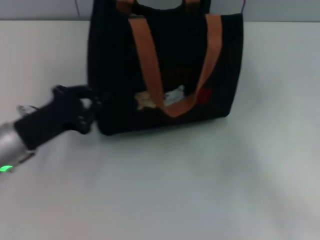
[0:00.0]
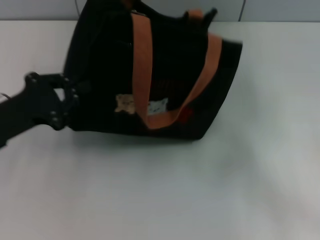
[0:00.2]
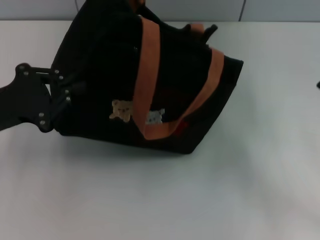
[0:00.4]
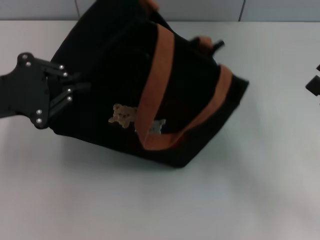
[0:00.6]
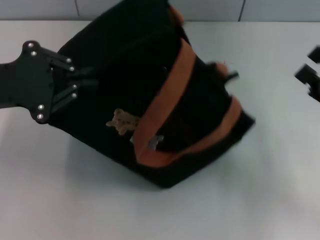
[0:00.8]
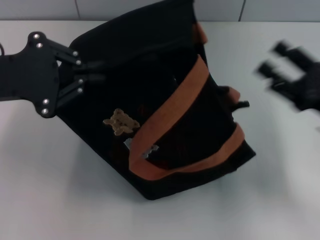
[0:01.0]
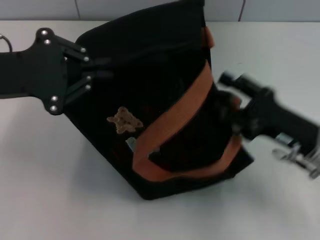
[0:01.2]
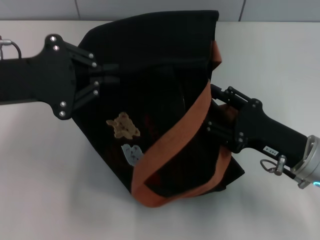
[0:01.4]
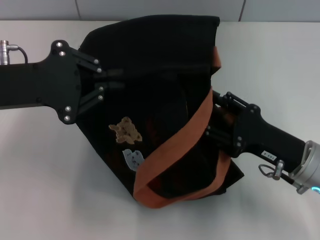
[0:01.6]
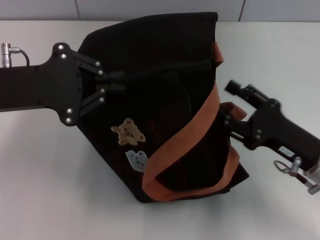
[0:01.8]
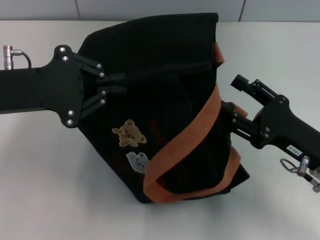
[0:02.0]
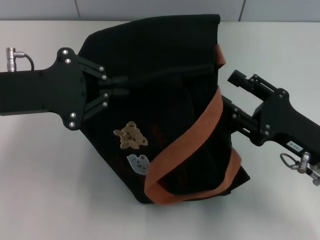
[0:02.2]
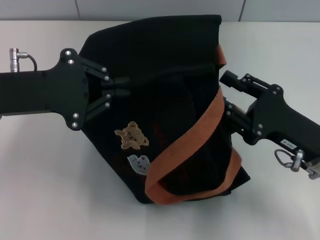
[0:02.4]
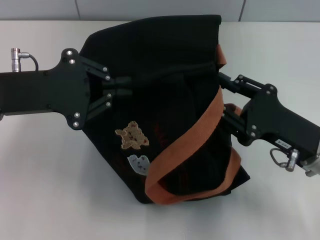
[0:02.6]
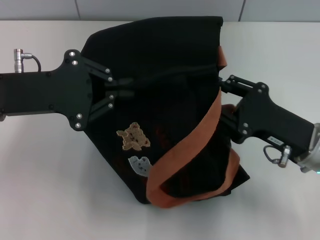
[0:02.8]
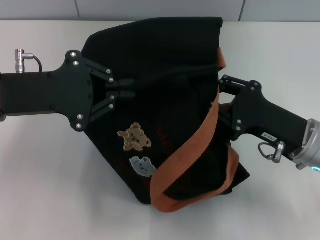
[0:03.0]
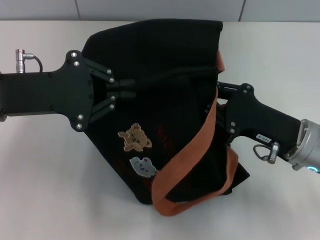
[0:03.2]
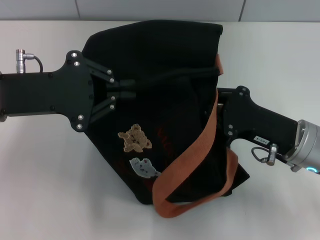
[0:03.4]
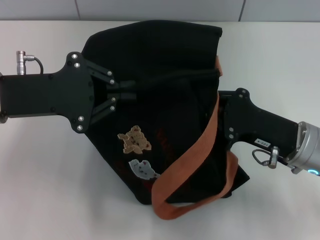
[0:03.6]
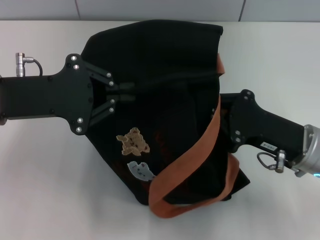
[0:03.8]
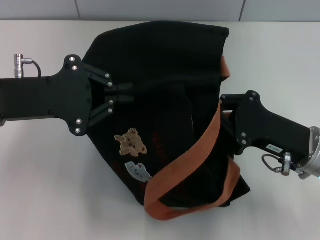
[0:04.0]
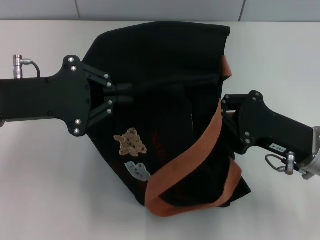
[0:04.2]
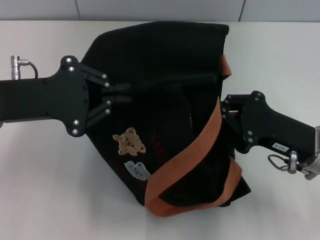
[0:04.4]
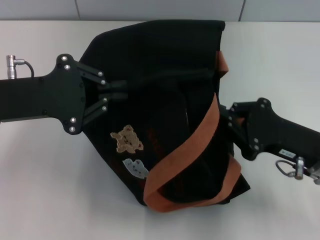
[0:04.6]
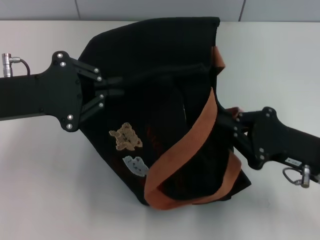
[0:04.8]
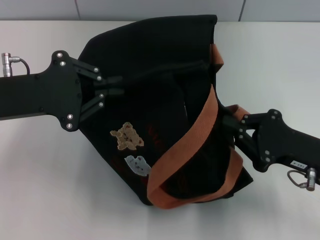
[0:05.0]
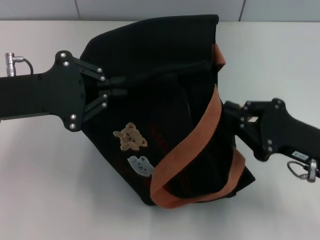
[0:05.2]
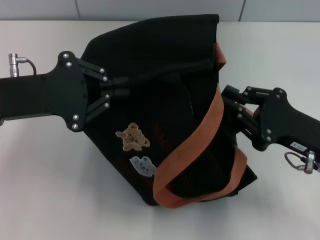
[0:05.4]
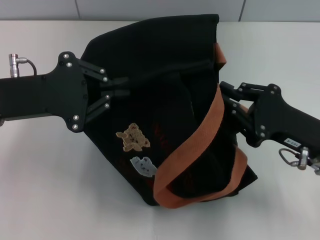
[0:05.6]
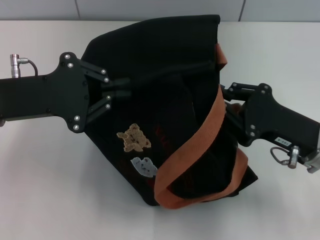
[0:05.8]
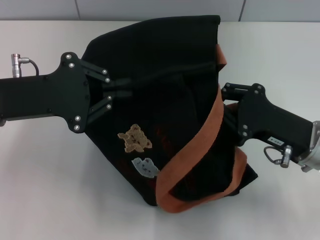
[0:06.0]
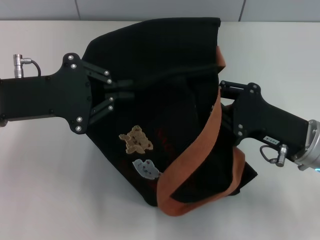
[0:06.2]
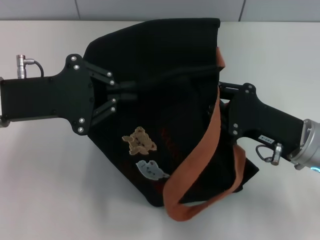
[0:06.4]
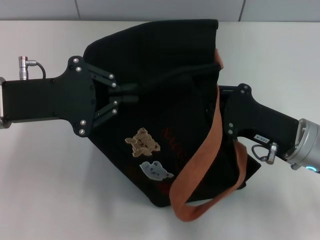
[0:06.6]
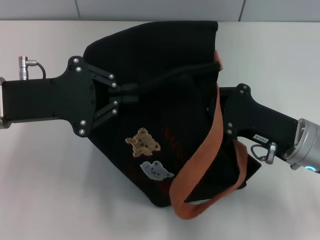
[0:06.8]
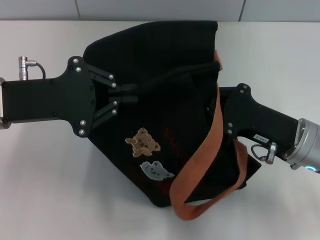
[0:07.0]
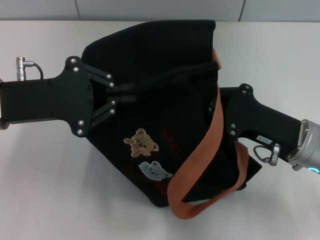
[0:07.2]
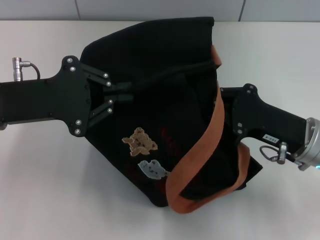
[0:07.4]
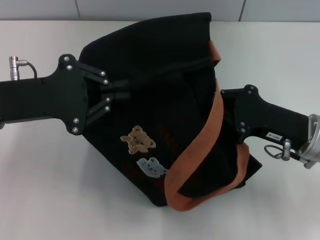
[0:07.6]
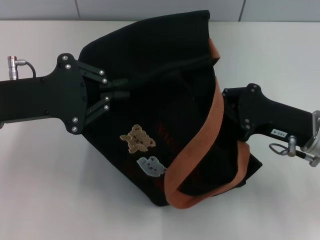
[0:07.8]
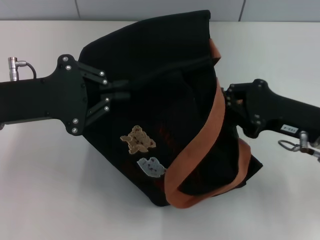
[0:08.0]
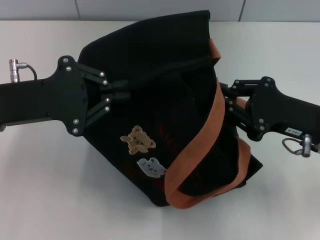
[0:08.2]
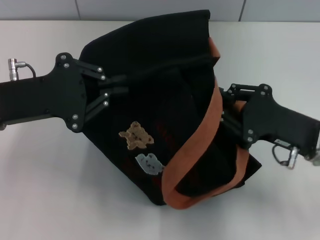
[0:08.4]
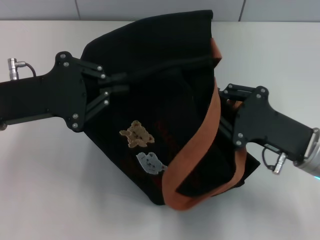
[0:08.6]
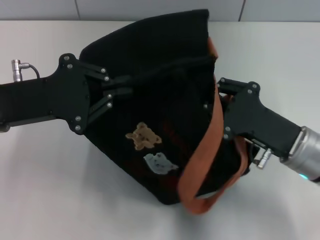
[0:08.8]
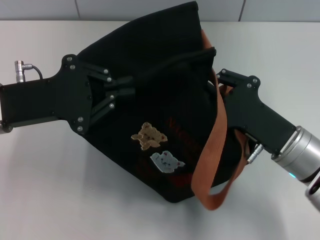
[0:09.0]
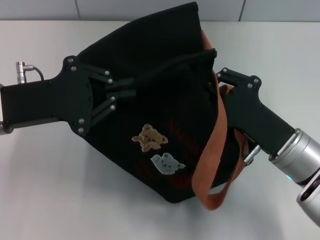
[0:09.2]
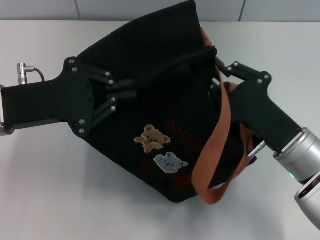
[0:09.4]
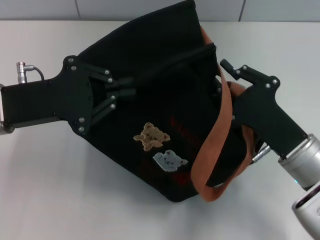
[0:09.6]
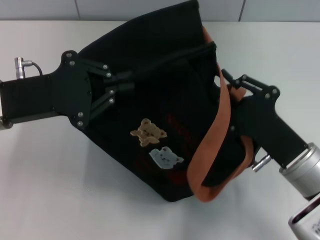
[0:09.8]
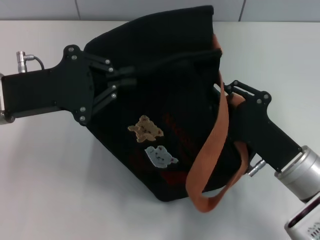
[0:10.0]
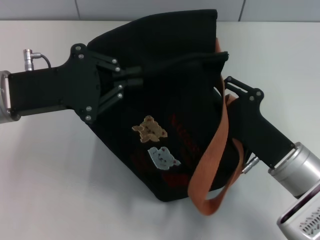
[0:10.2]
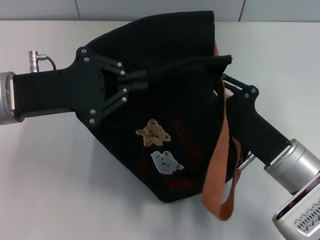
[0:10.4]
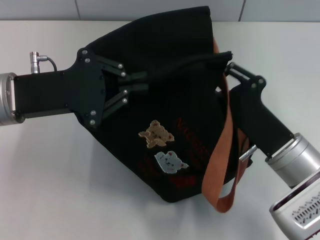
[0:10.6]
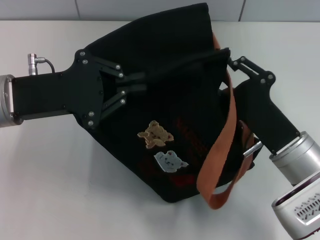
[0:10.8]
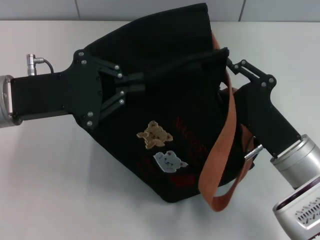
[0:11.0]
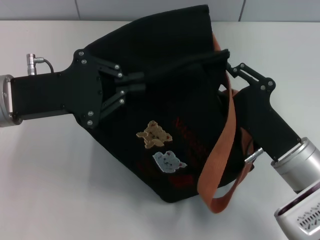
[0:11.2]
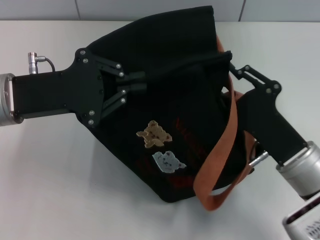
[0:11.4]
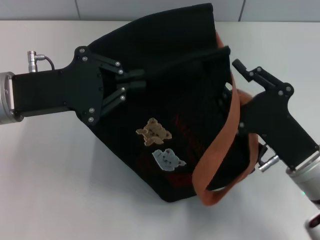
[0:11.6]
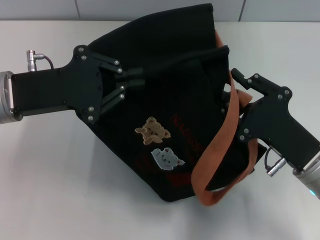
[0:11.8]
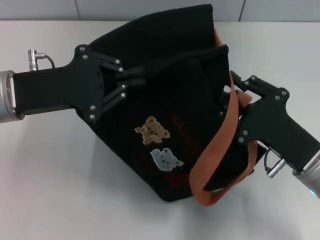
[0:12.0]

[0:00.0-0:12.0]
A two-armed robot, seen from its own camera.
0:00.0 to 0:01.6: The right gripper heads to the left, covering approximately 15 cm. Meanwhile the left gripper travels upward by about 15 cm.
0:03.0 to 0:04.4: The right gripper closes.
0:04.4 to 0:07.6: The grippers make only small movements.
0:09.0 to 0:10.4: The grippers stay close to where they were, moving slightly.
0:10.4 to 0:12.0: There are only small adjustments of the grippers.

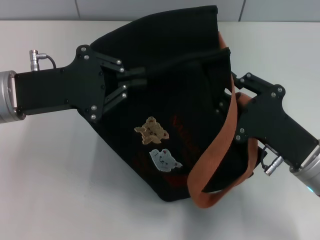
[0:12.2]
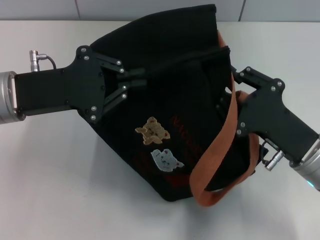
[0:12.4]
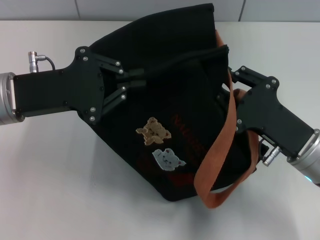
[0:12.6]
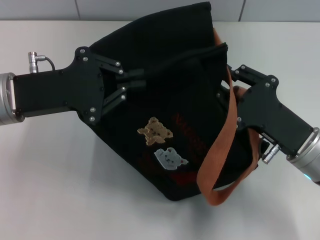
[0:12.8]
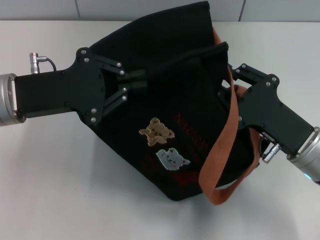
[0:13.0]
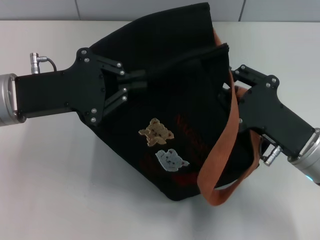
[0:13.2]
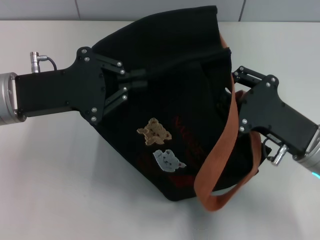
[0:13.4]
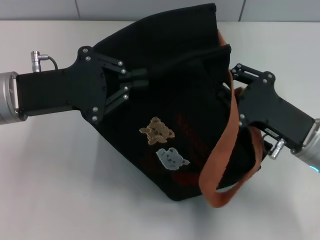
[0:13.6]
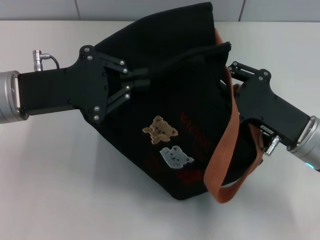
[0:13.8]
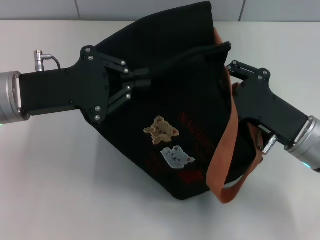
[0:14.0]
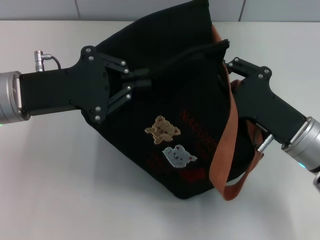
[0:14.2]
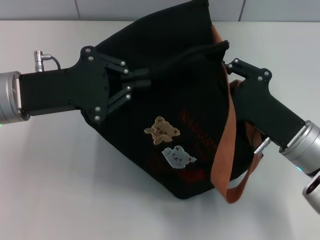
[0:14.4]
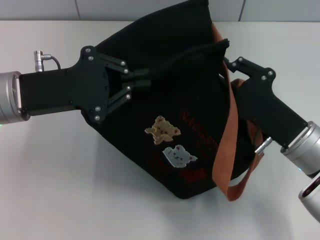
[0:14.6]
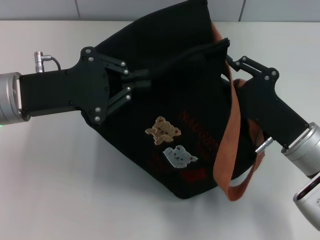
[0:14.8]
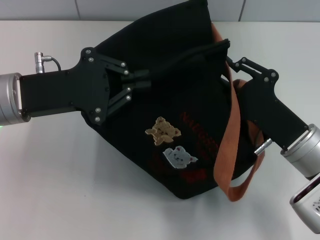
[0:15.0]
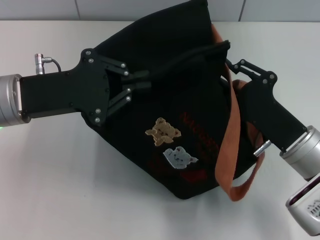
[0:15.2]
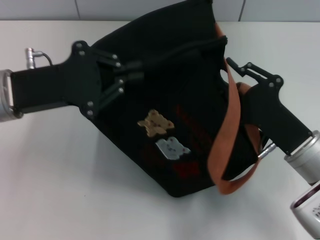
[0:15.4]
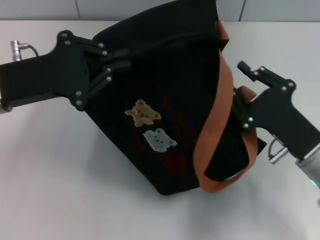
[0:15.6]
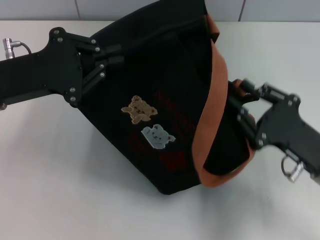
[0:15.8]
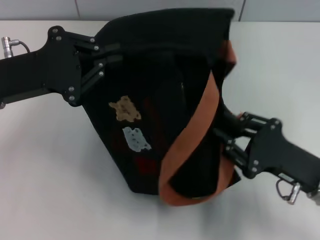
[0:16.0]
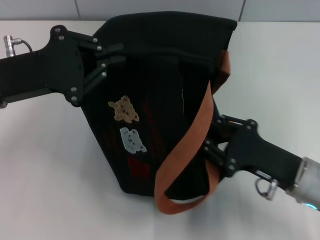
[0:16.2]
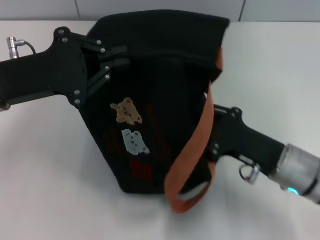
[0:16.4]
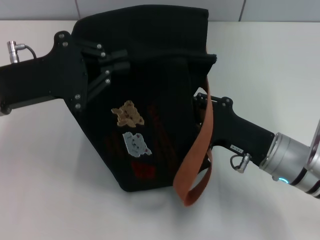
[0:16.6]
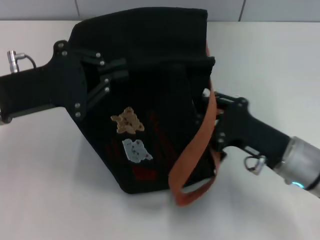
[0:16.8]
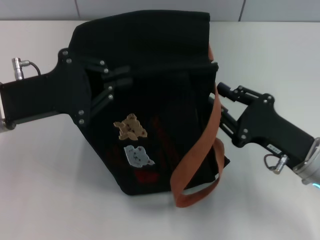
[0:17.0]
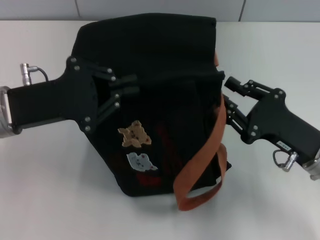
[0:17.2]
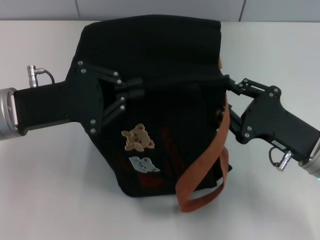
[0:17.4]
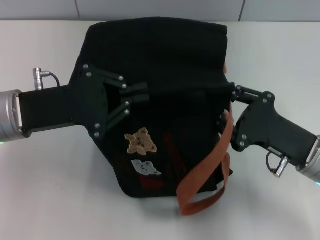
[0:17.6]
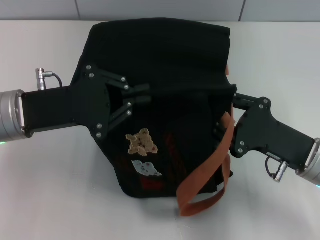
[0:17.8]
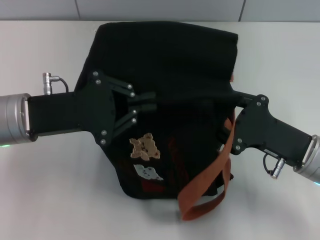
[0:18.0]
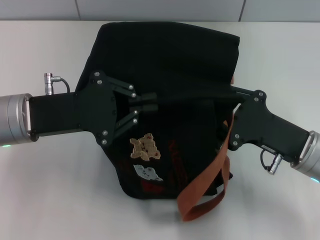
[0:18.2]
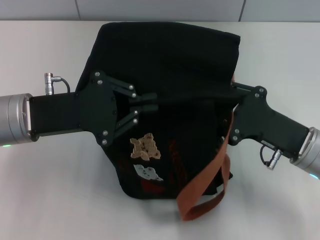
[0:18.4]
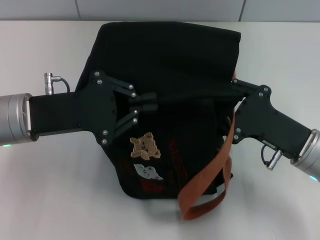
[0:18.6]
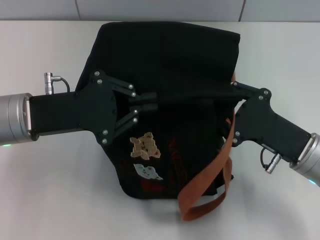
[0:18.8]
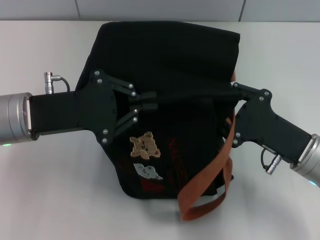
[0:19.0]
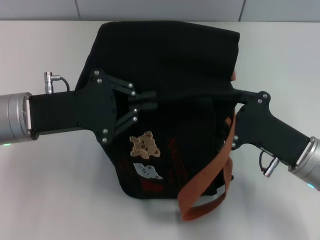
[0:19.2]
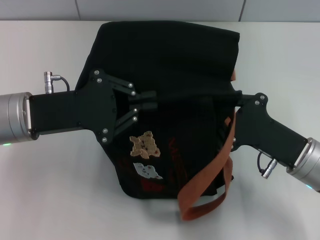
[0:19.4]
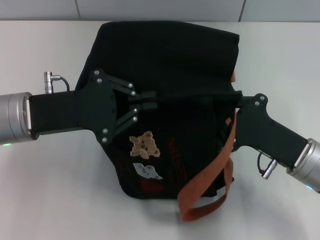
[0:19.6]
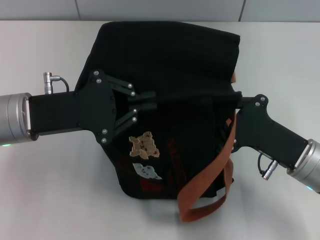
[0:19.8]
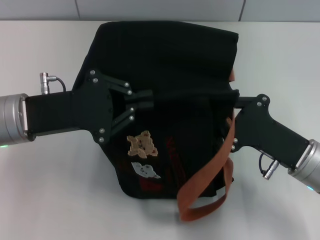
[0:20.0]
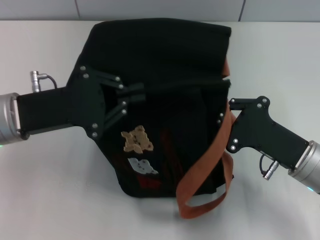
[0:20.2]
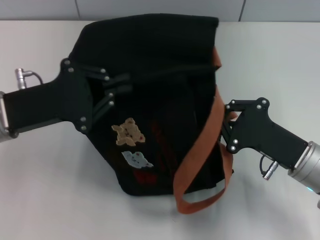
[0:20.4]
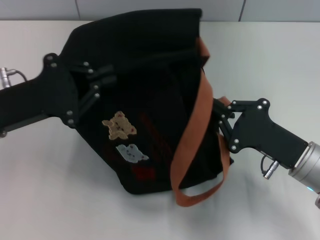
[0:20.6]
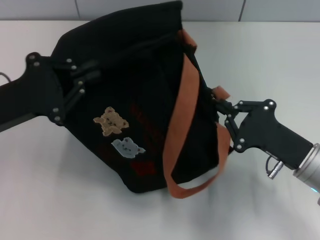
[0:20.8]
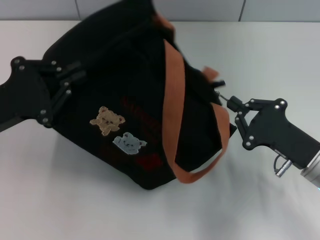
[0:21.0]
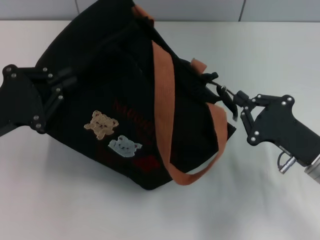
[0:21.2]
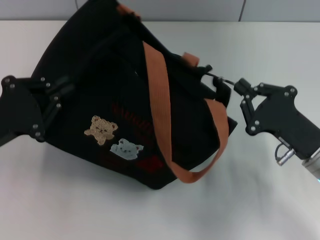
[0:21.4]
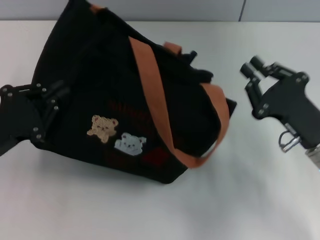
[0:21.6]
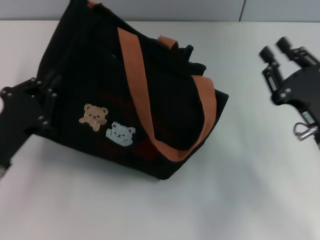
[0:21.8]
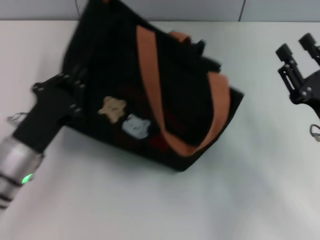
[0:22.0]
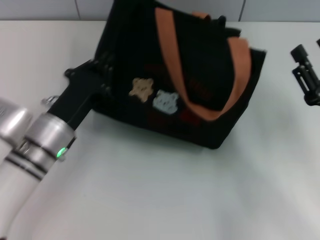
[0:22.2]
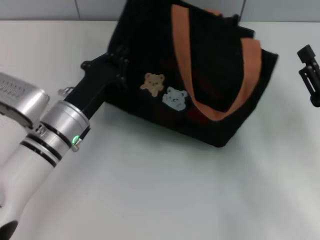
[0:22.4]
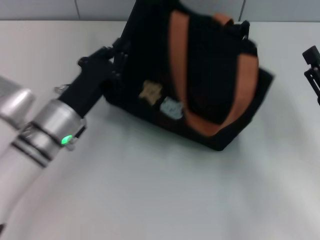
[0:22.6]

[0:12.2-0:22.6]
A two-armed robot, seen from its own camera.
Step, 0:12.2 to 0:21.4: Pull open the zipper with your right hand.
0:12.2 to 0:13.6: The grippers move only a little.
0:18.2 to 0:19.6: The grippers make only small movements.
0:19.6 to 0:21.2: The left gripper moves to the left, some 5 cm.
0:21.2 to 0:22.6: The left gripper is displaced to the right and downward by approximately 15 cm; the right gripper opens.
